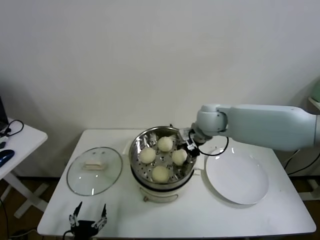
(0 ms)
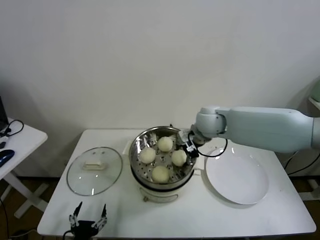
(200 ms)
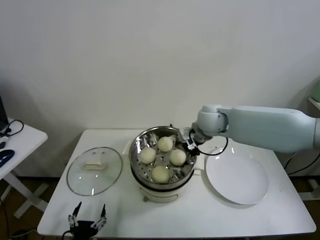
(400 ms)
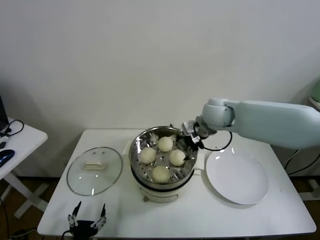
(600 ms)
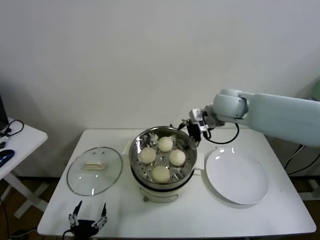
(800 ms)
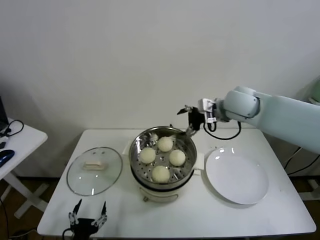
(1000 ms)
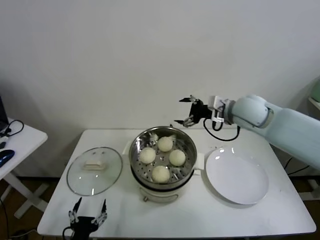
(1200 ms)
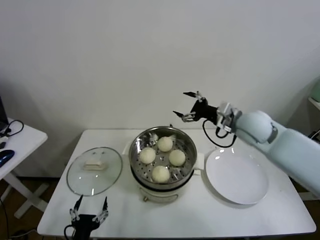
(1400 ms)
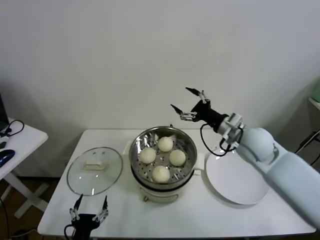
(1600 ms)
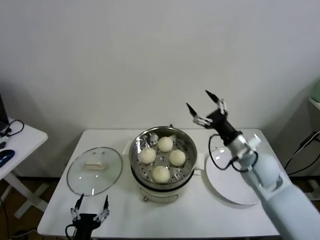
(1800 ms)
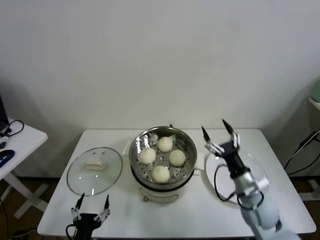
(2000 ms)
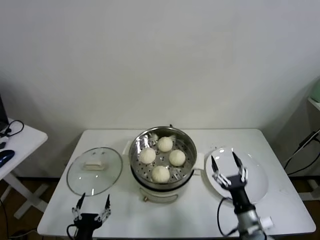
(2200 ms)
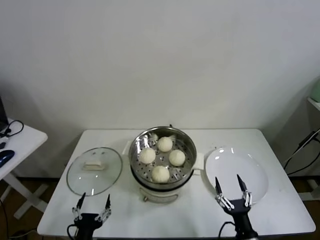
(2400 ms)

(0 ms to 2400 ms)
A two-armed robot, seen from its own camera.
Task of the whole recording: take steamed baozi put them in steamer.
0 ms - 1200 ms: The right gripper moves to the right, roughly 10 cm, and opens up.
1200 ms - 2400 ms: The right gripper travels downward and backward by approximately 50 cm.
